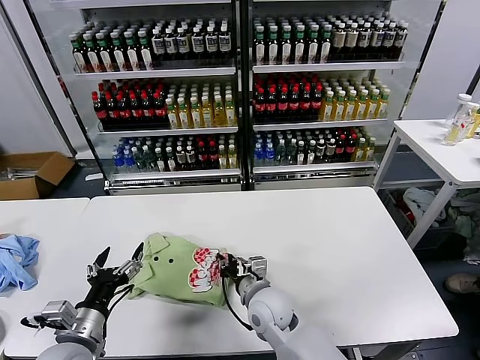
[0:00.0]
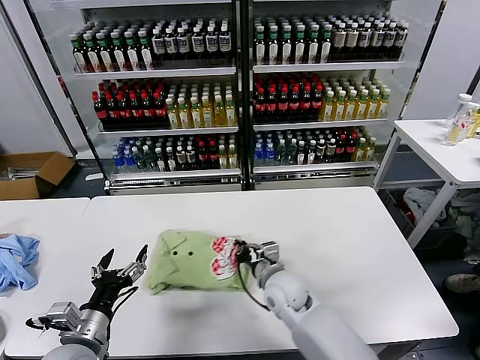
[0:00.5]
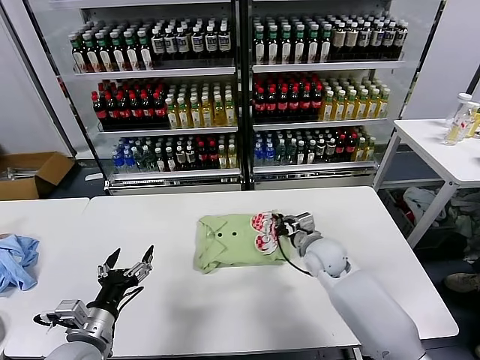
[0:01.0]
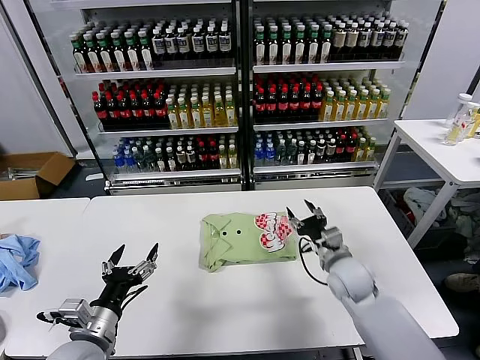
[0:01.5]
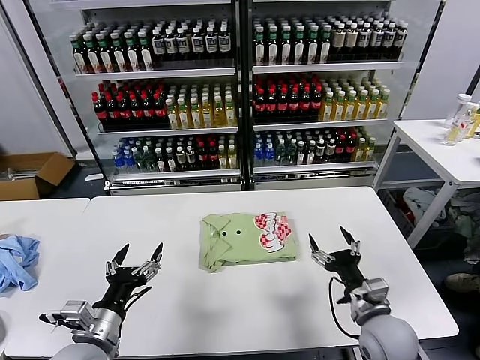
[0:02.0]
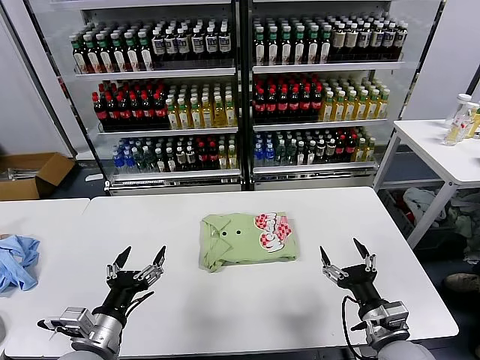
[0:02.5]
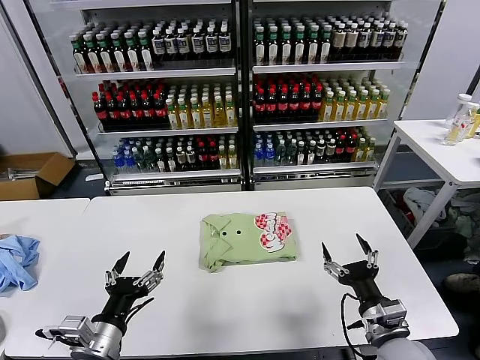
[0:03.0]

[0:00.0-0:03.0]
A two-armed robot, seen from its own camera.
Task of the whole recording: fold and organize the clothes.
0:00.0 to 0:01.5: The right gripper travels to the right by roughly 20 cm.
0:01.5 to 0:03.0: The right gripper is displaced backward by some 20 cm, and opens up.
